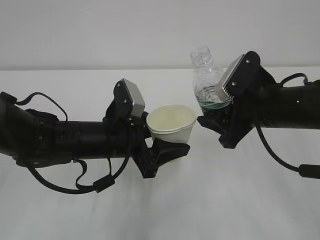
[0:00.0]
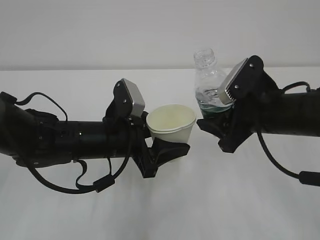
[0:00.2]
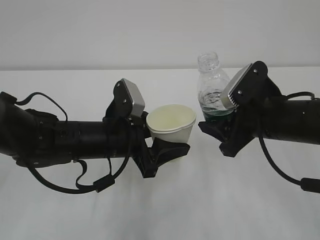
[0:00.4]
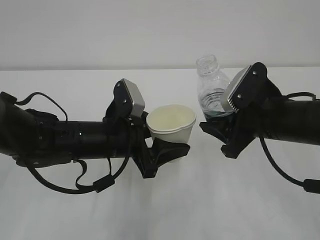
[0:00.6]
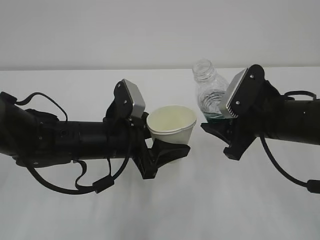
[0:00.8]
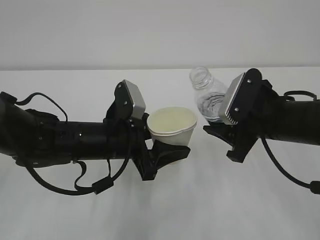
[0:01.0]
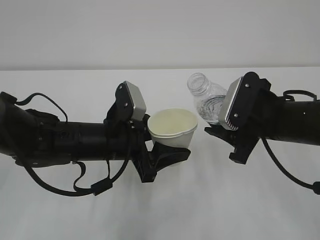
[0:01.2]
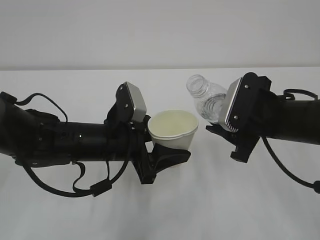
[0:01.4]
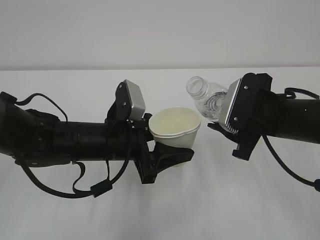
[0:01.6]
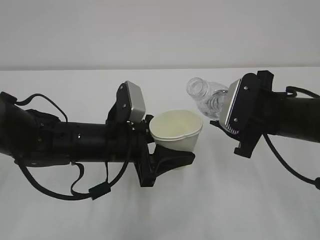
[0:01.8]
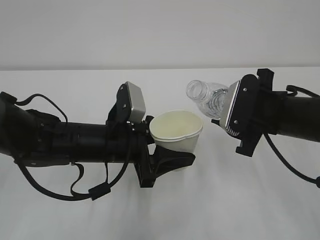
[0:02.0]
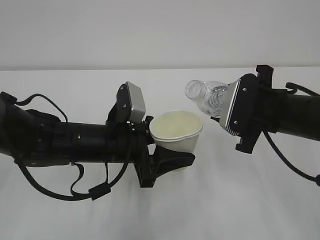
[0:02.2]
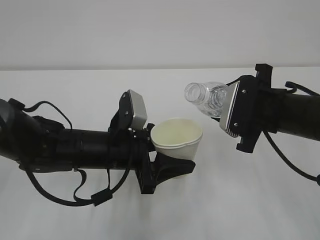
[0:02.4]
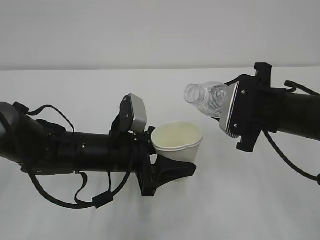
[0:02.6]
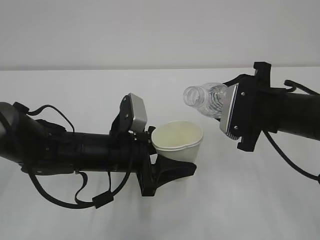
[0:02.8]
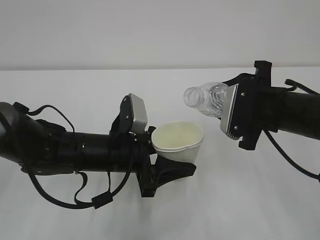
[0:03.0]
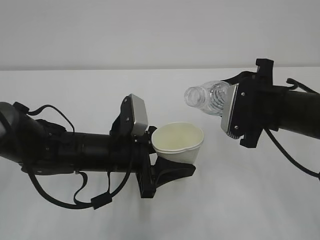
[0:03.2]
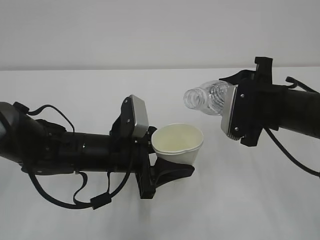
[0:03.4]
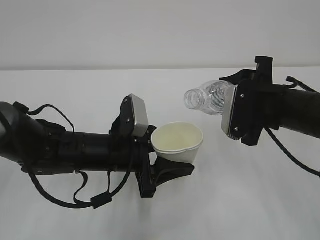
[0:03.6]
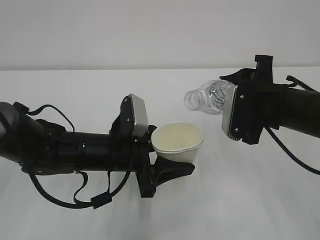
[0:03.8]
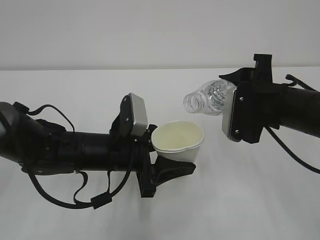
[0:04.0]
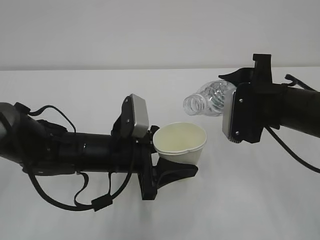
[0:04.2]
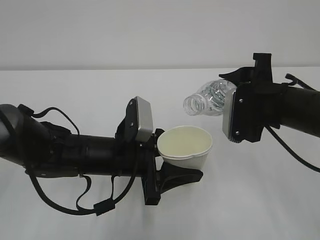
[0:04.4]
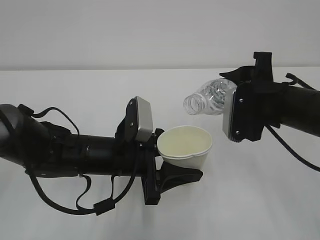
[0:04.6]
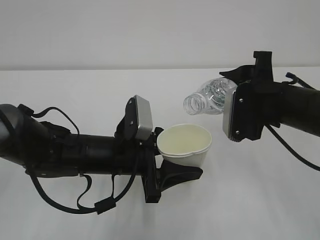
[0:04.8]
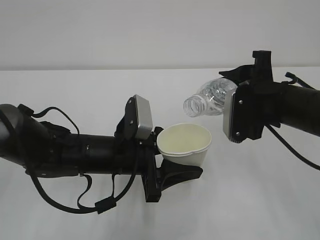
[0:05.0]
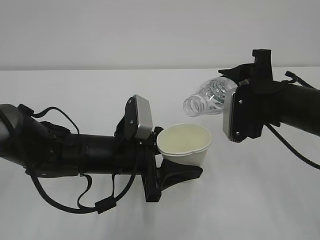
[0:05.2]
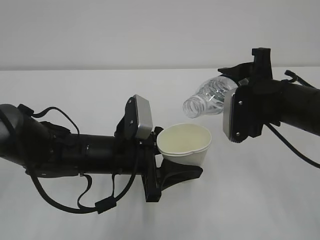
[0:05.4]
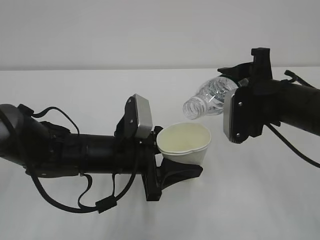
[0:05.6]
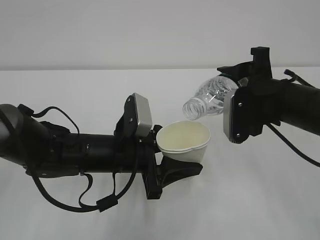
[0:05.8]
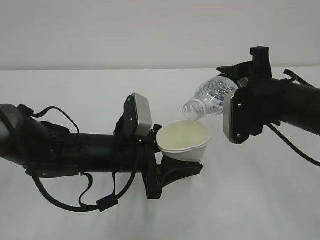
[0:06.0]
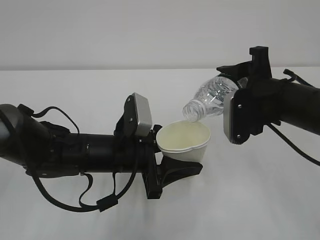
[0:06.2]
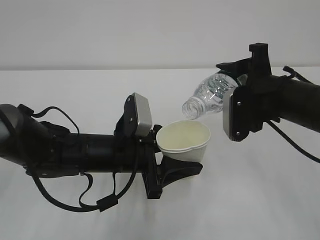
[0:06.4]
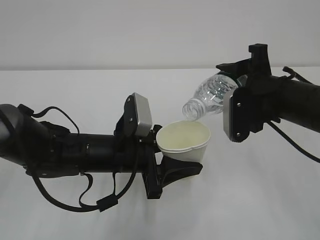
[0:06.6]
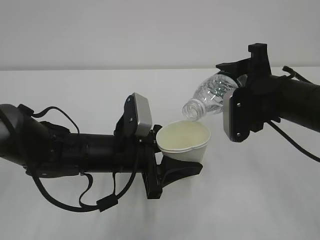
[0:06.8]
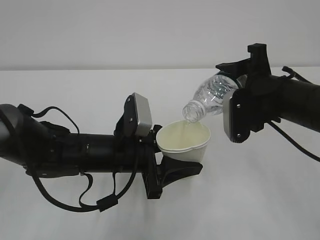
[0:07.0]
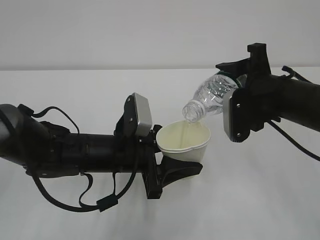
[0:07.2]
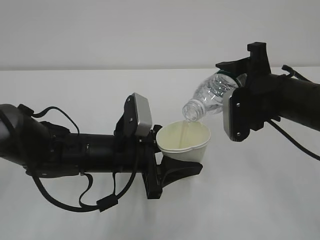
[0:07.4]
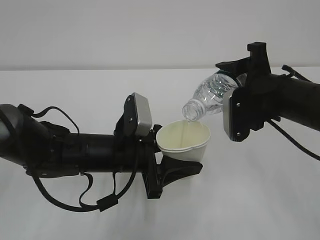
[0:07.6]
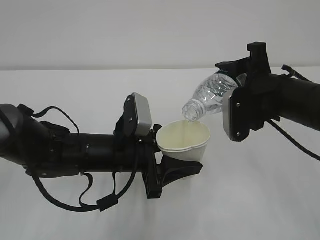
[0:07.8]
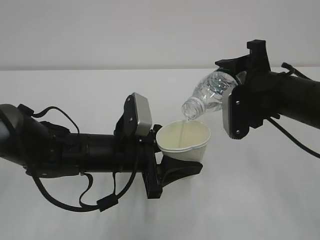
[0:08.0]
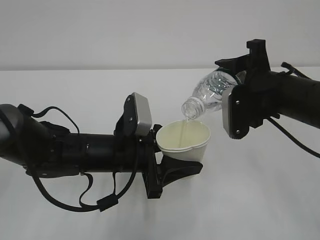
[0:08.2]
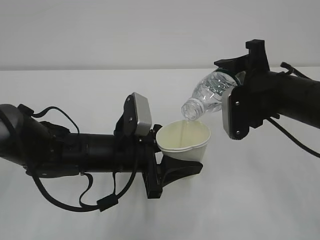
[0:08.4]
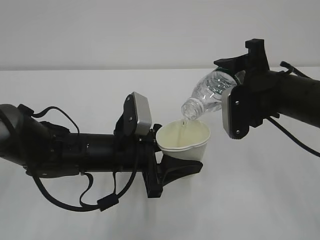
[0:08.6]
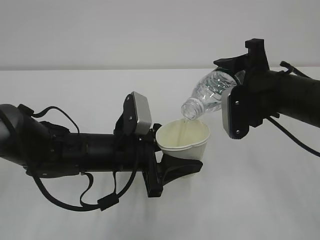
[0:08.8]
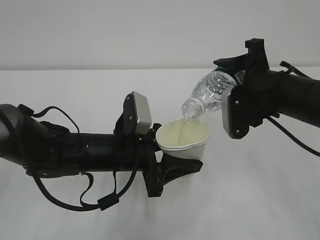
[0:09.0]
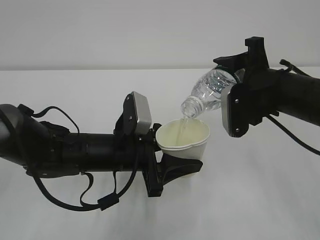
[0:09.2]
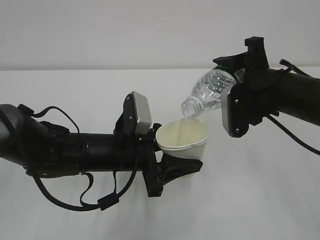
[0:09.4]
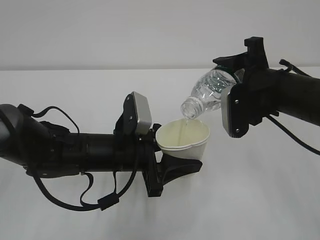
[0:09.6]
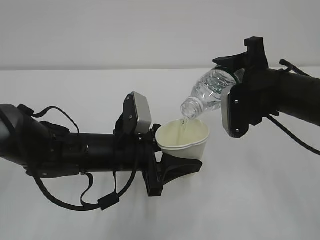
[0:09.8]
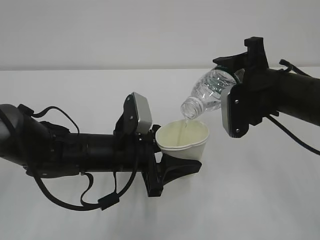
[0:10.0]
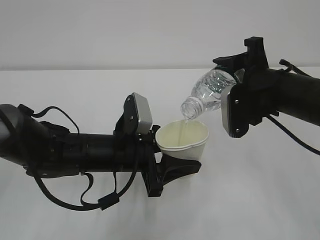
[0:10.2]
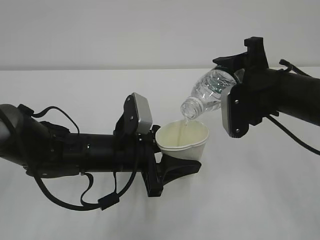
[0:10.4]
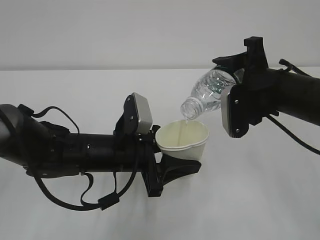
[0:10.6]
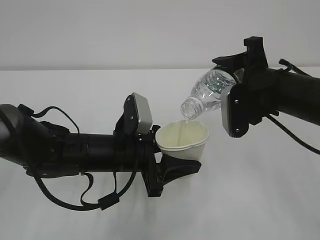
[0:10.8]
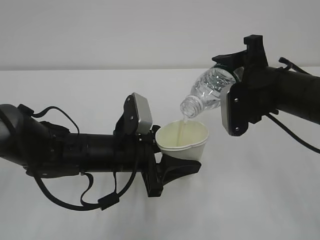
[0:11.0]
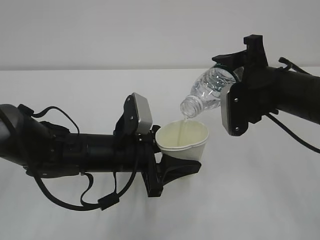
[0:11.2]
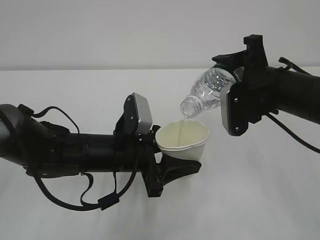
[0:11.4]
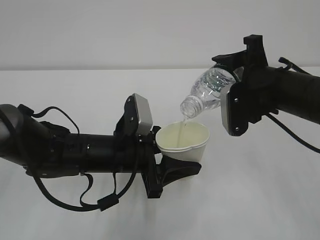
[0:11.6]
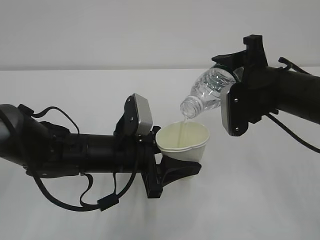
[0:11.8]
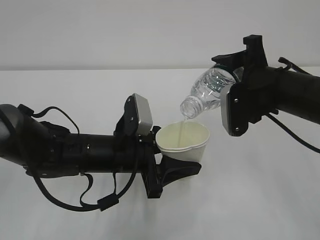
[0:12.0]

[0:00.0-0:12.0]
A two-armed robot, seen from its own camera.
0:01.6 to 0:03.0: The grippers move only a little.
0:03.0 to 0:04.4: The grippers move only a little.
0:04.4 to 0:06.0: The grippers make only small movements.
0:06.0 to 0:07.6: Neither gripper changes place.
0:07.6 to 0:12.0: The two grippers keep their place.

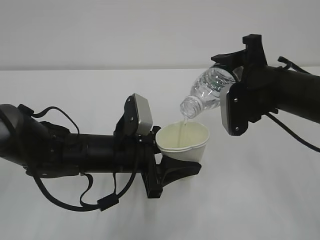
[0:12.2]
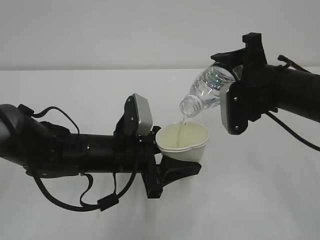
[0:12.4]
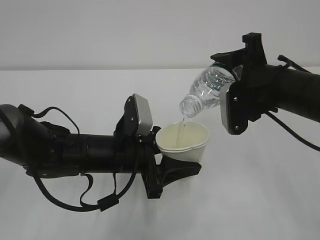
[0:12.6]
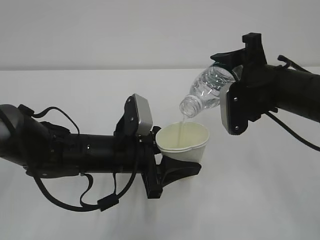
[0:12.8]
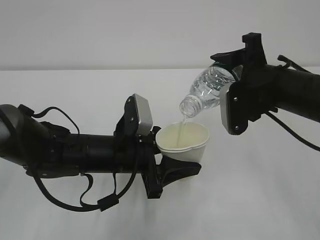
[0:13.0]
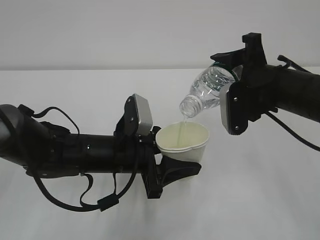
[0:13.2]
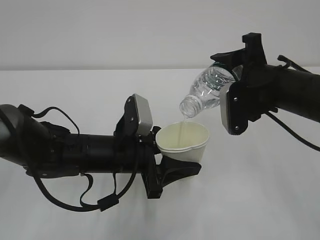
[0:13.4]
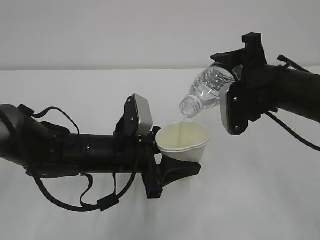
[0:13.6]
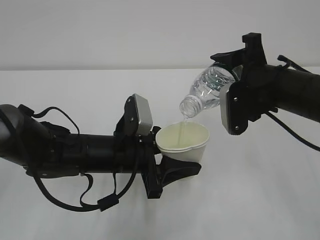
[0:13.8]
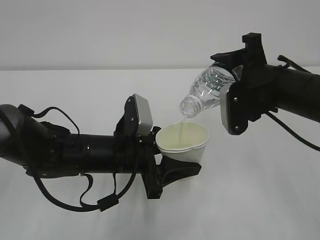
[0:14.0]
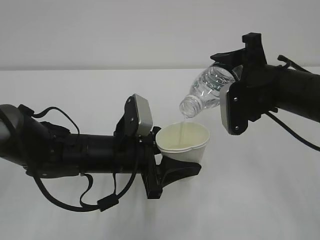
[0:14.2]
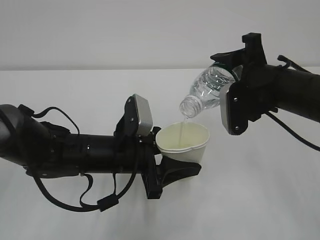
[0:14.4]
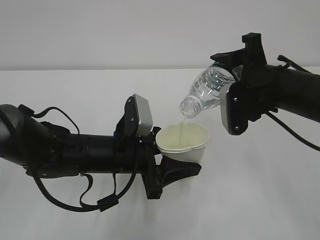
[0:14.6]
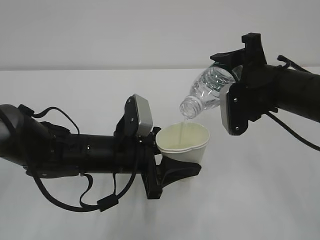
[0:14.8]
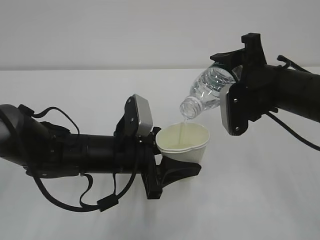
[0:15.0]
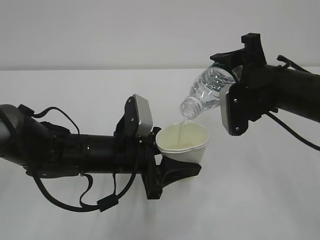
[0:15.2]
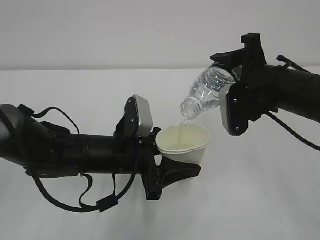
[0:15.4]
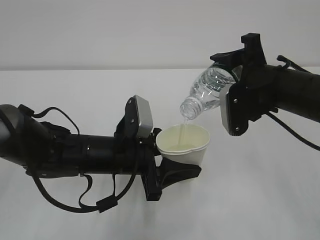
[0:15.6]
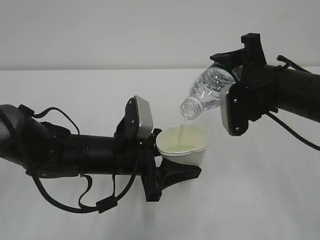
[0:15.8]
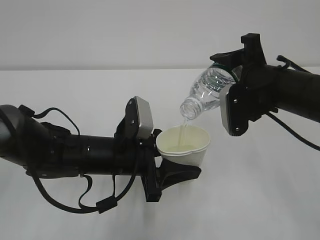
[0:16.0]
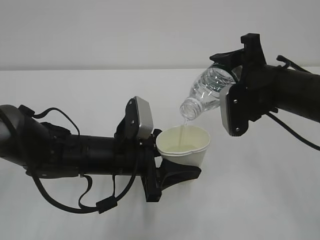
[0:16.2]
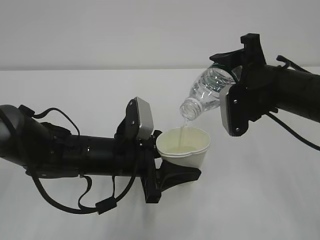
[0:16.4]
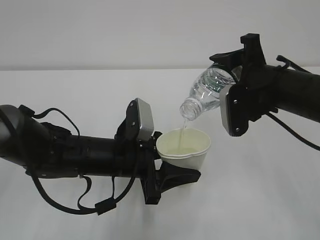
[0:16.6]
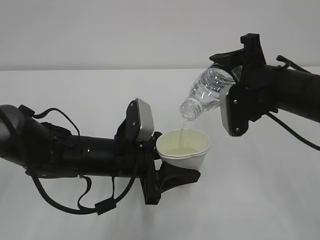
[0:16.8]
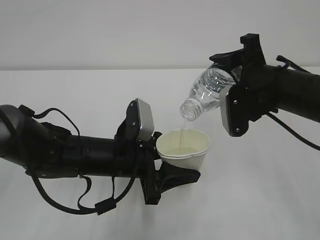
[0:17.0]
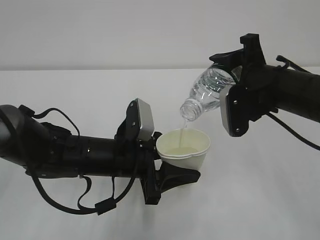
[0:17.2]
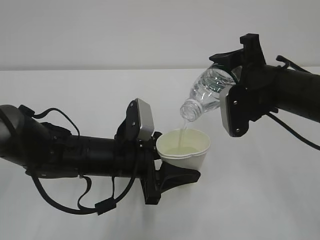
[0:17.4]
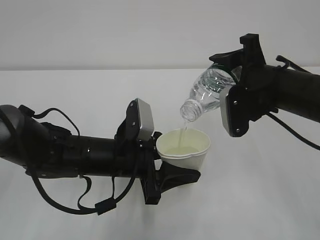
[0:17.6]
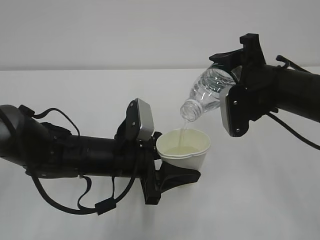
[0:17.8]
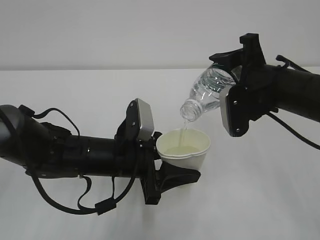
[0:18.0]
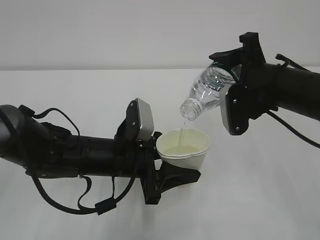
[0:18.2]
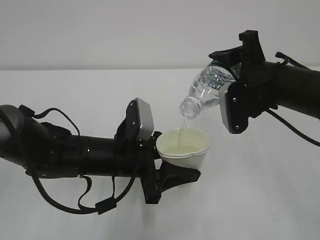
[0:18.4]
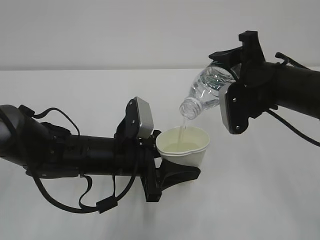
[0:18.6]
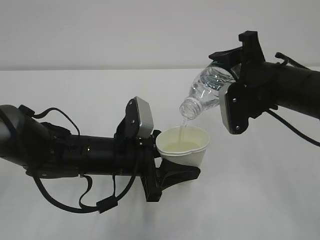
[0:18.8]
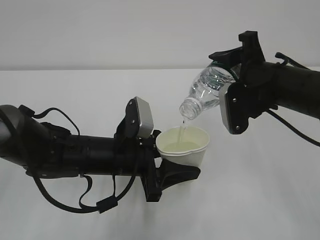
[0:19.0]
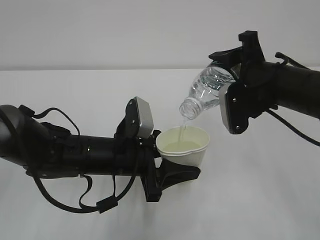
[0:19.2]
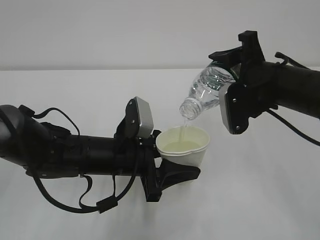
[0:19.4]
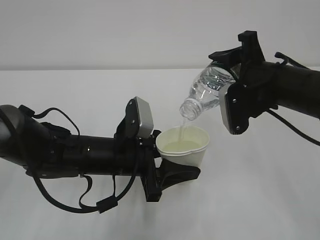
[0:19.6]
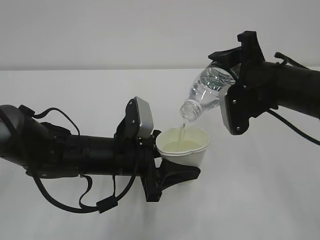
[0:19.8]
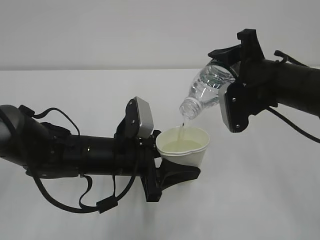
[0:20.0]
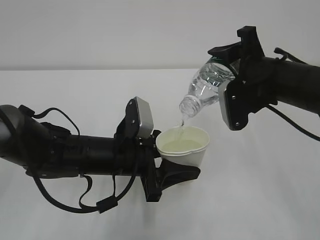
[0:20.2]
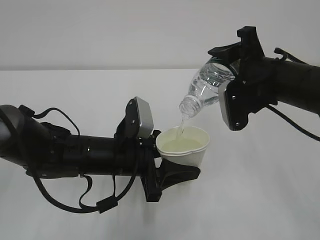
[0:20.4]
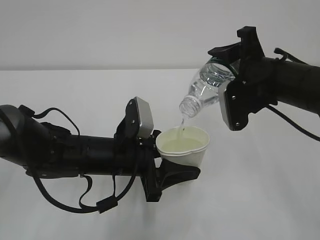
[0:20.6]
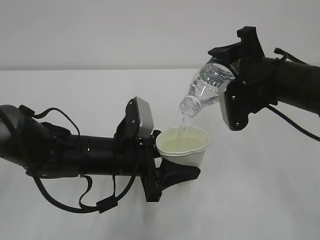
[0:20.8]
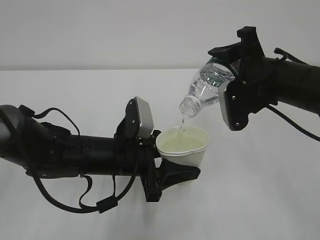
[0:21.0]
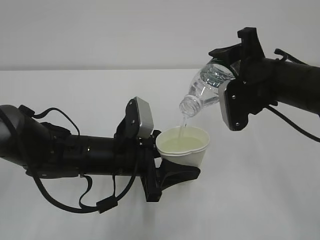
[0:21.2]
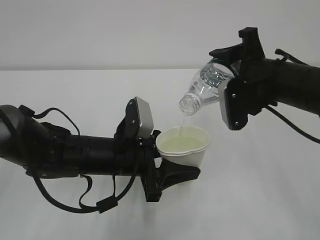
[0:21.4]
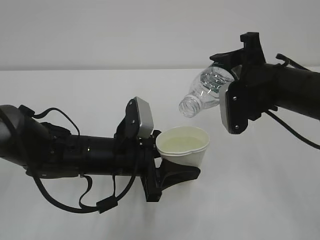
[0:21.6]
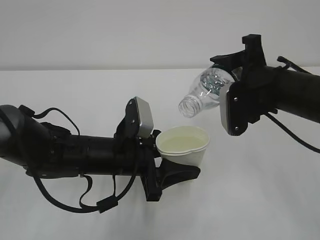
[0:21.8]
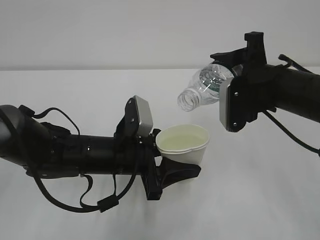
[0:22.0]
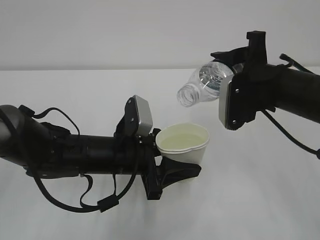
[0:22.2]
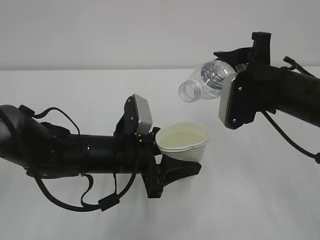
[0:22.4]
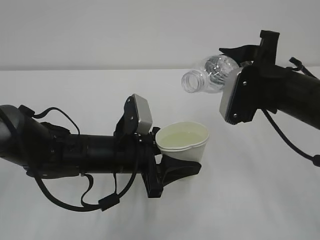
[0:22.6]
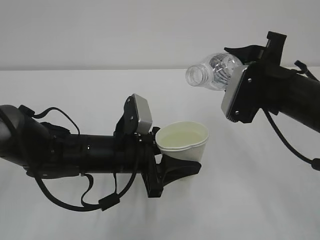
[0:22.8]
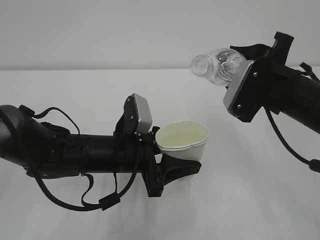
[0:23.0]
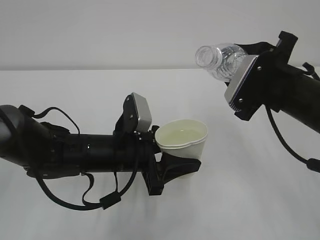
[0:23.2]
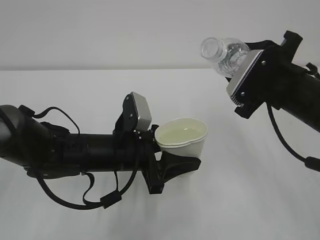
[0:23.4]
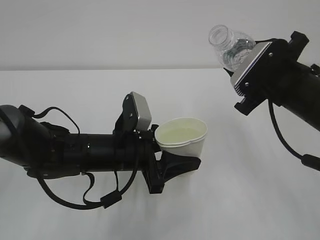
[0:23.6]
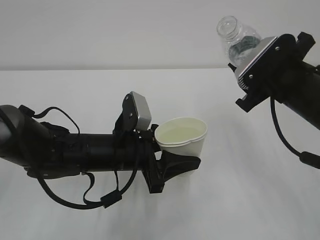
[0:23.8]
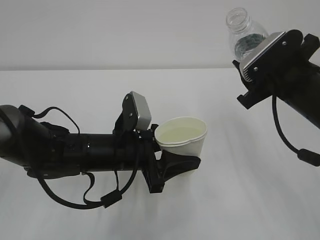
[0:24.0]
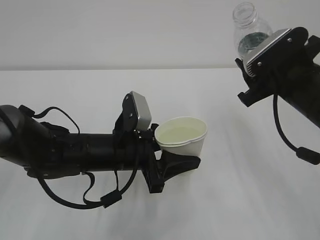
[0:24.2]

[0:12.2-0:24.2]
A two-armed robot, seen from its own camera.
0:12.2 to 0:18.2: Both grippers stay put.
0:18.2 to 0:21.2: The two grippers keep their place.
